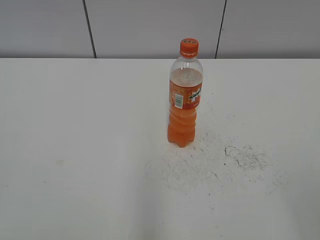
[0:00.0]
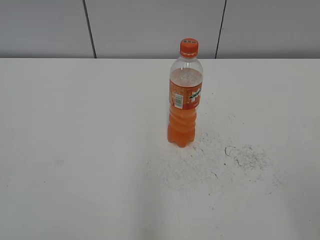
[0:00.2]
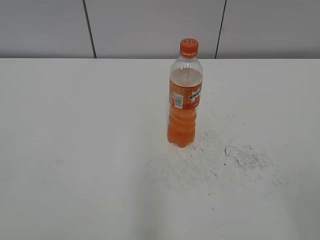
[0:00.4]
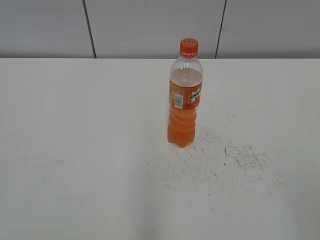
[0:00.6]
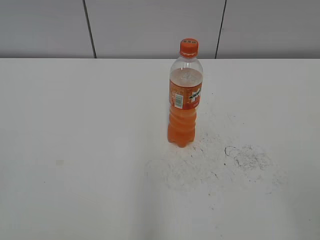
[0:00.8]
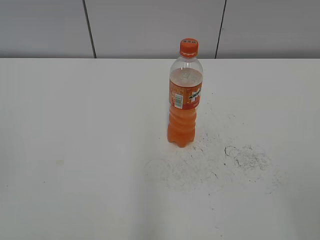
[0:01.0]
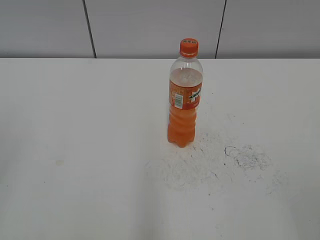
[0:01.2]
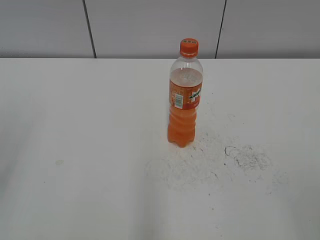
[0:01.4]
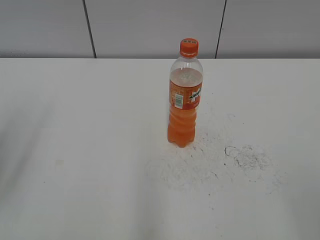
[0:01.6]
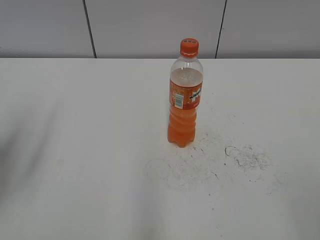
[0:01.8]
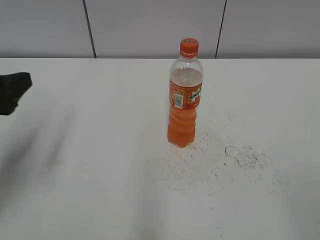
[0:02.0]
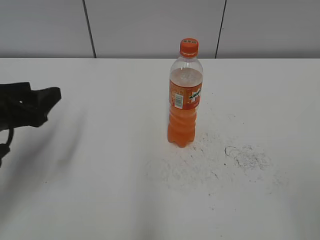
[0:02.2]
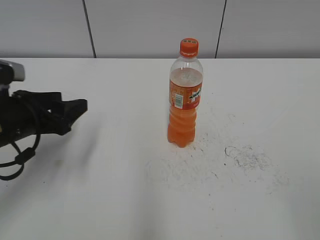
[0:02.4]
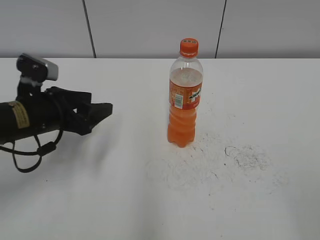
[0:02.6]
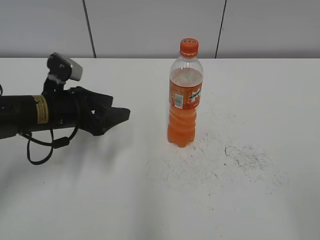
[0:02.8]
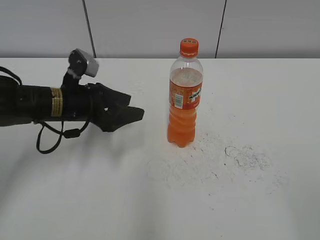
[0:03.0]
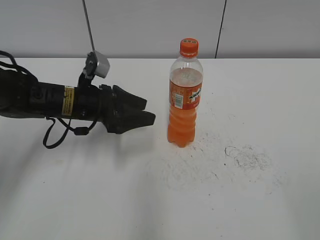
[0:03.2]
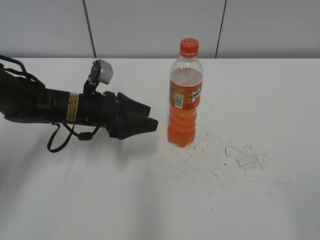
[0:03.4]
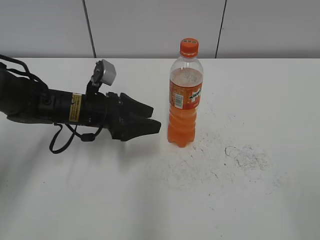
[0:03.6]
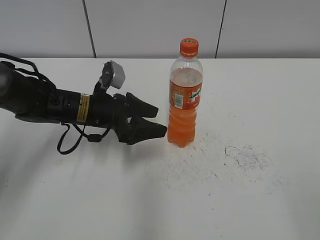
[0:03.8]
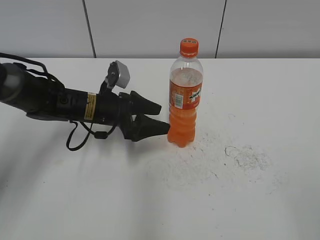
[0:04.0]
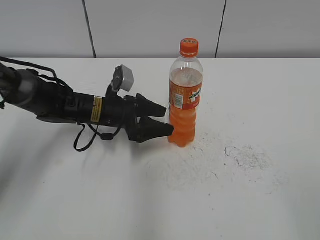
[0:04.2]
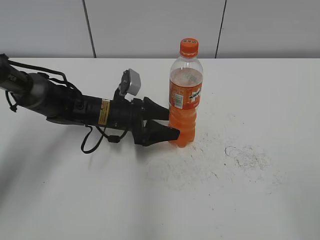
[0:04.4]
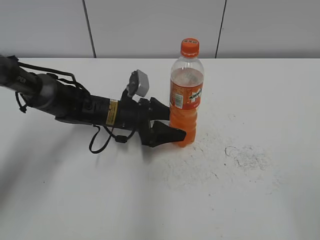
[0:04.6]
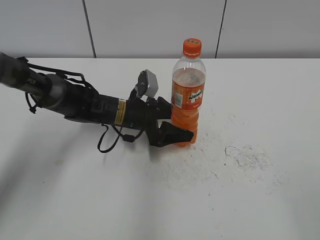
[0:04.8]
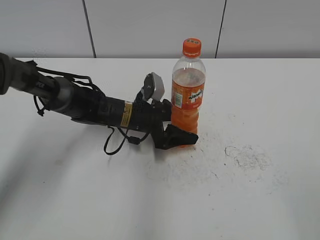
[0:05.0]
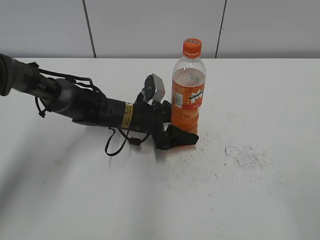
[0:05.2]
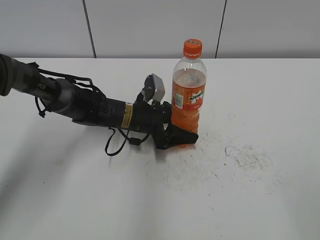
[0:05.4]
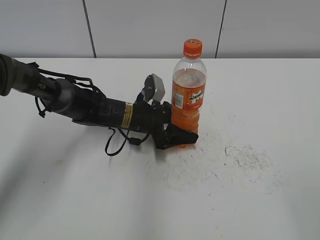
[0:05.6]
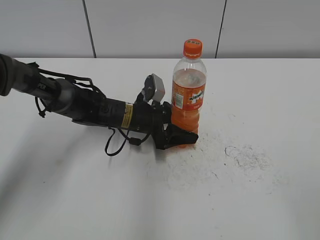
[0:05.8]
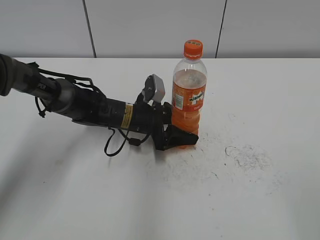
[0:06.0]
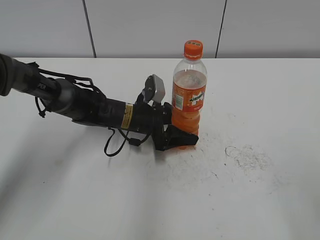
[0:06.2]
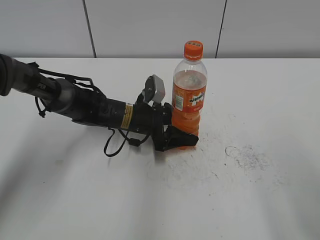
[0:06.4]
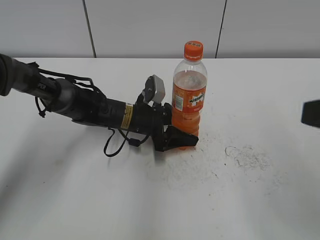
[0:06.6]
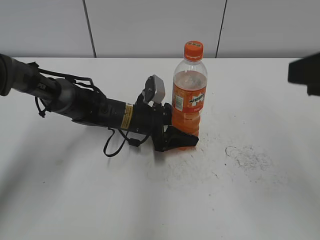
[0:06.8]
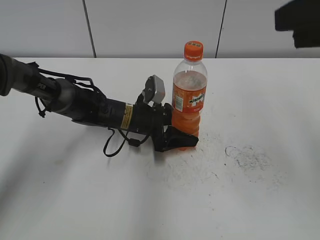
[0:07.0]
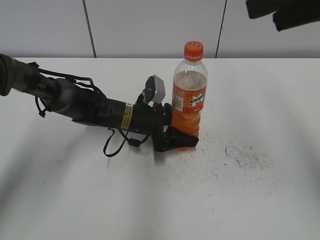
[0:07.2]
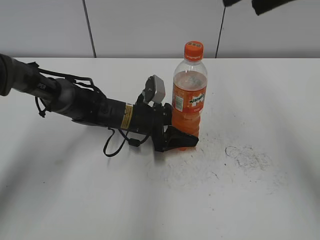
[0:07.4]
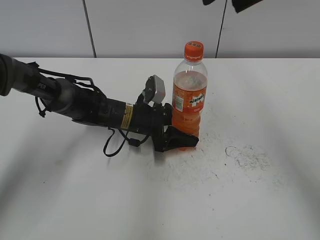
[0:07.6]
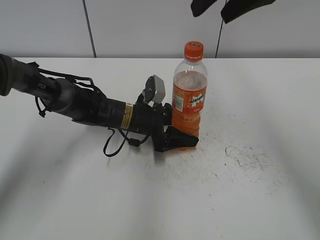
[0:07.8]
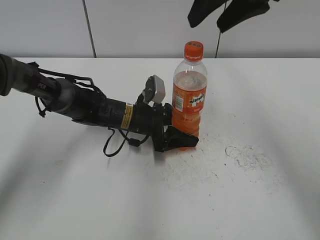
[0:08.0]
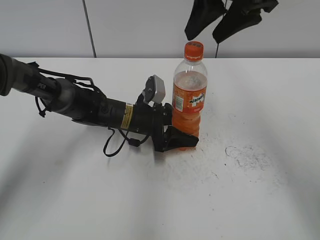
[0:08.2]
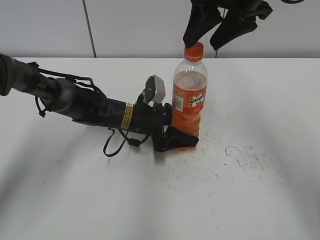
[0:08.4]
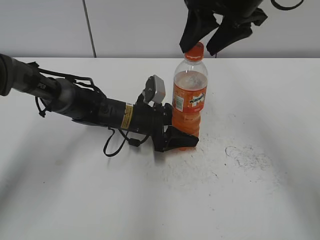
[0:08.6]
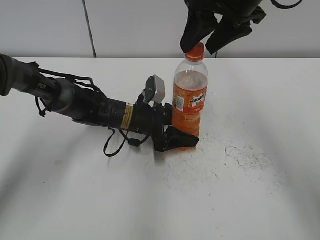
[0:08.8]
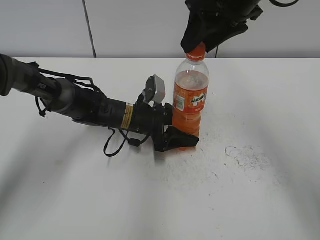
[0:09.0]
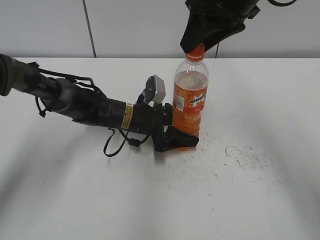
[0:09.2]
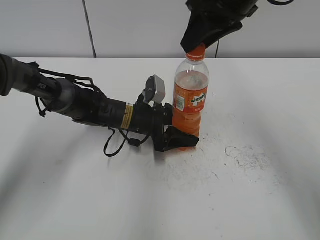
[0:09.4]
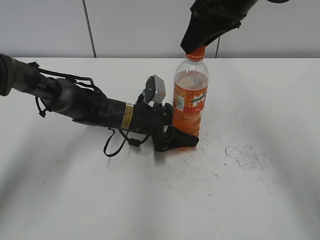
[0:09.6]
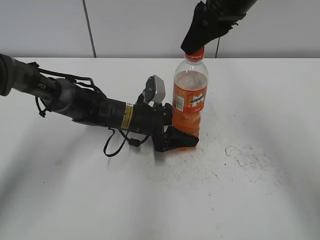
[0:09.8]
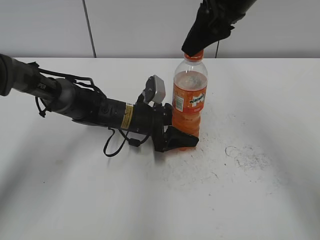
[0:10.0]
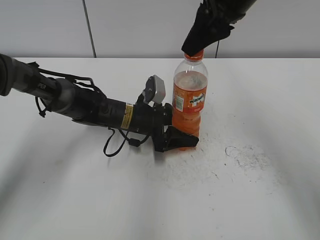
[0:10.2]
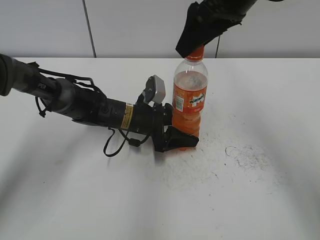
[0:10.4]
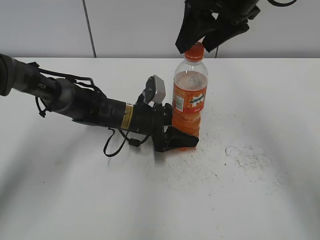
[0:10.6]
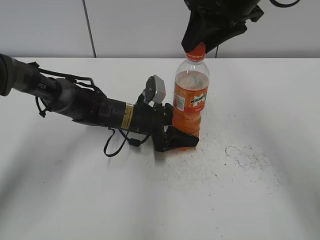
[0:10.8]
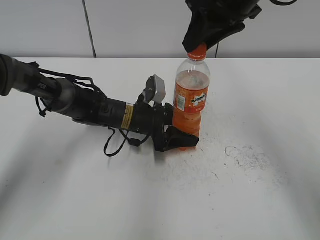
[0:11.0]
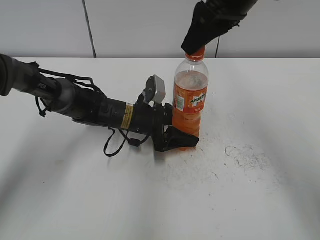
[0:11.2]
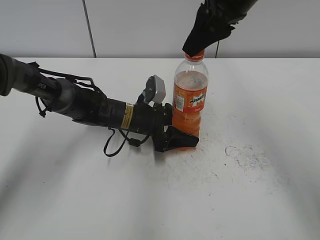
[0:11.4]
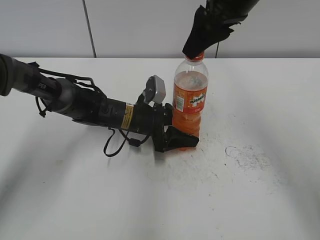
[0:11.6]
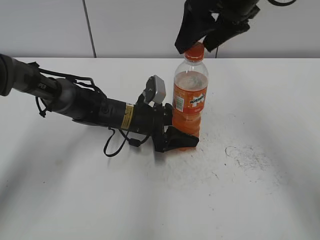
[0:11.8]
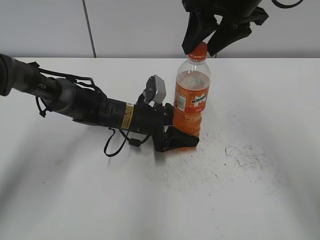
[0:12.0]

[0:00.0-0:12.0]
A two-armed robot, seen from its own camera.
Step, 0:00.0 to 0:05.4: Grab the Mirinda with the left hand.
0:01.6 to 0:03.0: The left gripper goes about 30 cm forward, downward and to the right.
0:03.0 to 0:04.4: The left gripper shifts some 10 cm to the right and downward, and opens up.
0:04.4 to 0:06.0: The left gripper closes up.
0:06.0 to 0:07.6: The right gripper travels forward by about 30 cm.
0:07.6 to 0:09.0: The right gripper heads downward and forward, covering roughly 10 cm.
0:09.0 to 0:10.4: The right gripper opens.
0:10.4 to 0:12.0: The right gripper closes, then reopens.

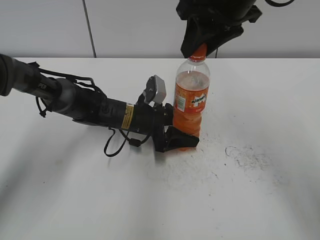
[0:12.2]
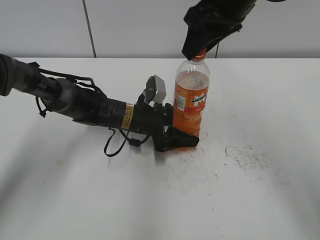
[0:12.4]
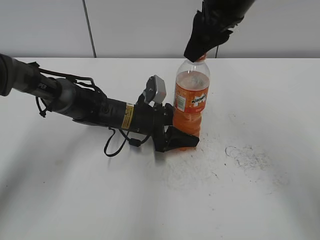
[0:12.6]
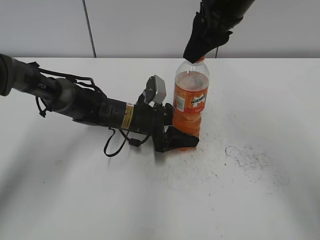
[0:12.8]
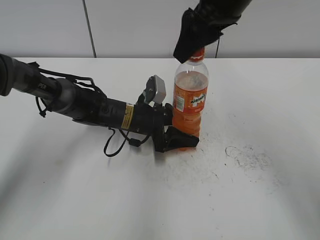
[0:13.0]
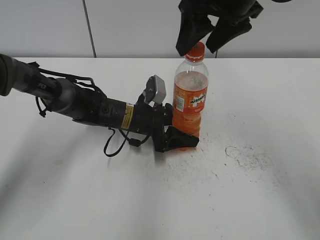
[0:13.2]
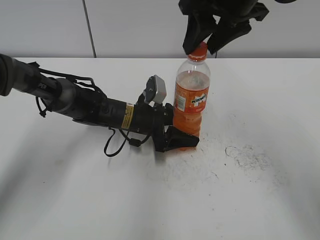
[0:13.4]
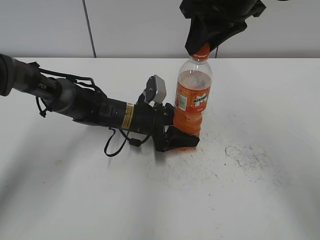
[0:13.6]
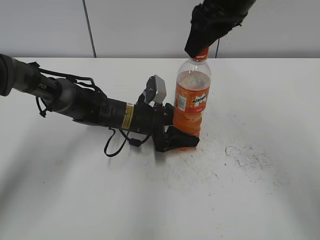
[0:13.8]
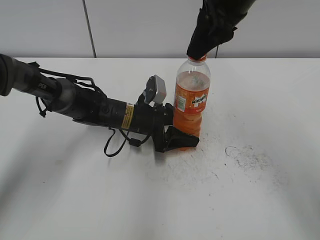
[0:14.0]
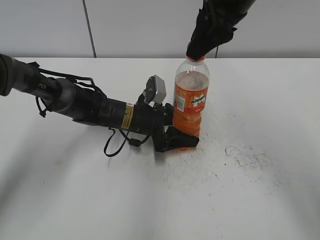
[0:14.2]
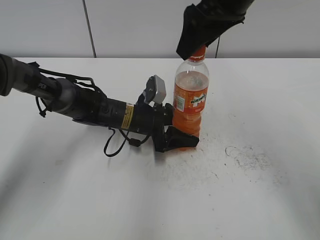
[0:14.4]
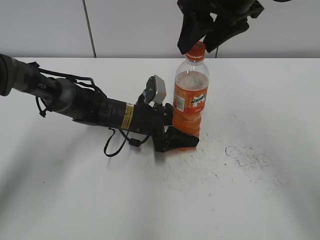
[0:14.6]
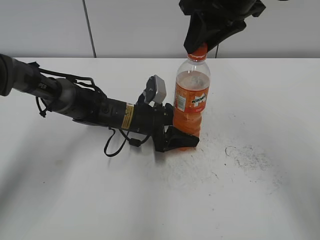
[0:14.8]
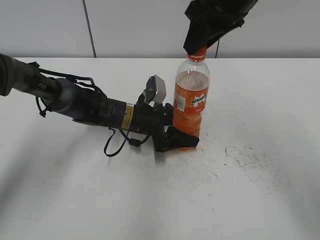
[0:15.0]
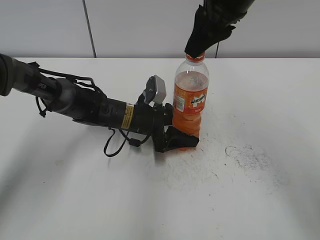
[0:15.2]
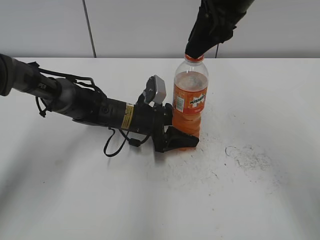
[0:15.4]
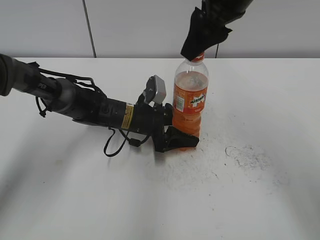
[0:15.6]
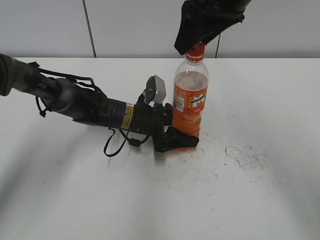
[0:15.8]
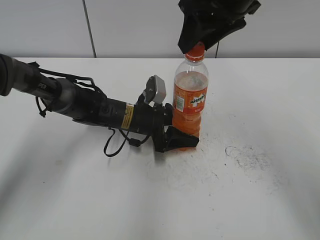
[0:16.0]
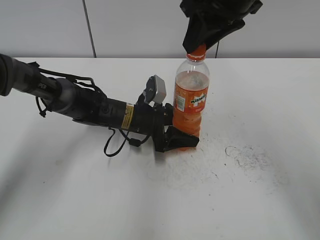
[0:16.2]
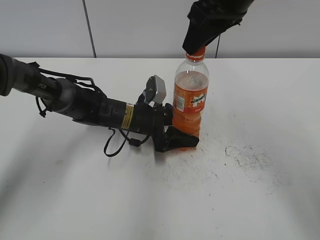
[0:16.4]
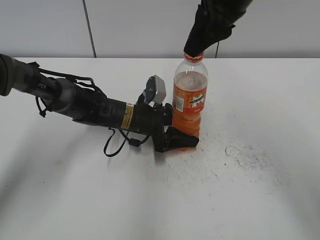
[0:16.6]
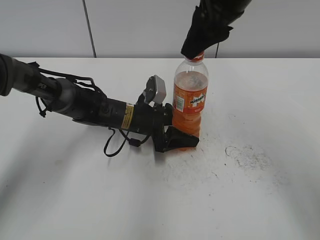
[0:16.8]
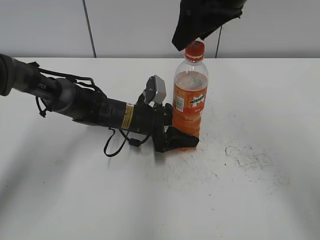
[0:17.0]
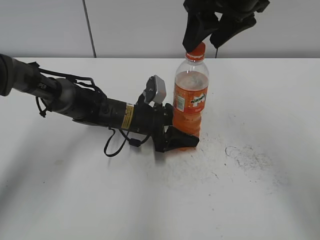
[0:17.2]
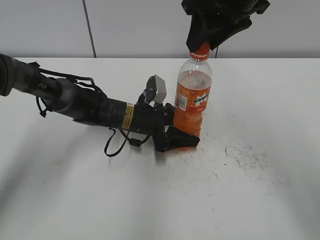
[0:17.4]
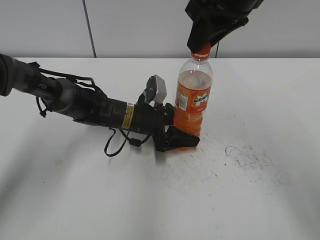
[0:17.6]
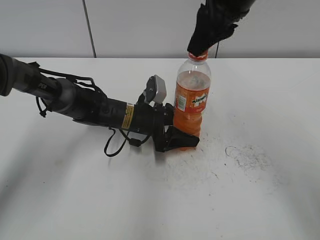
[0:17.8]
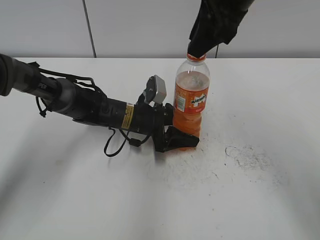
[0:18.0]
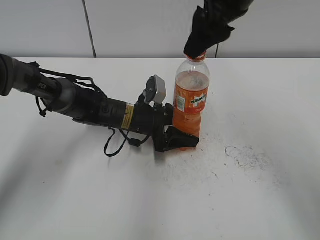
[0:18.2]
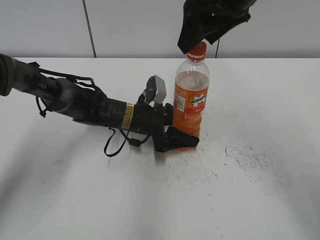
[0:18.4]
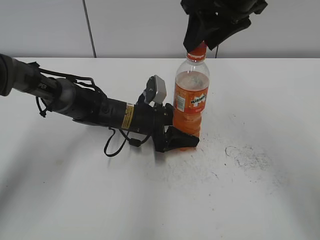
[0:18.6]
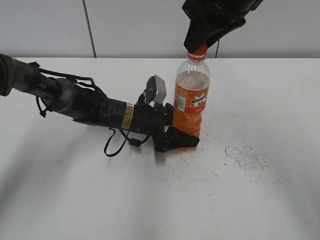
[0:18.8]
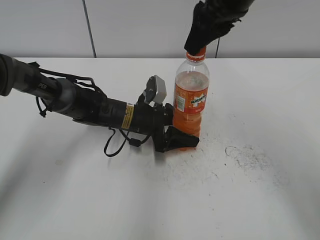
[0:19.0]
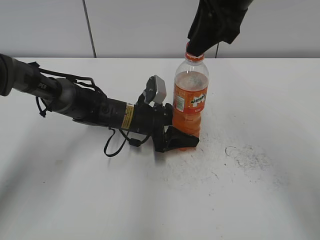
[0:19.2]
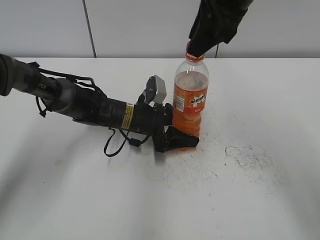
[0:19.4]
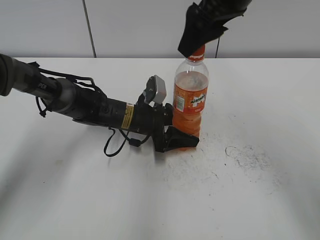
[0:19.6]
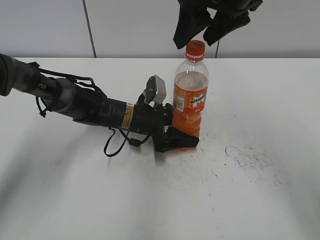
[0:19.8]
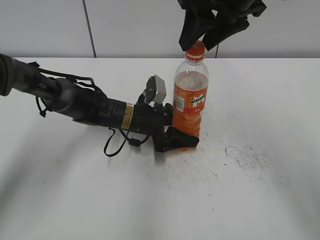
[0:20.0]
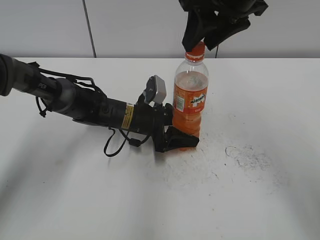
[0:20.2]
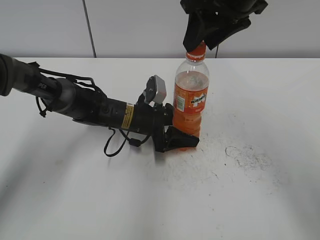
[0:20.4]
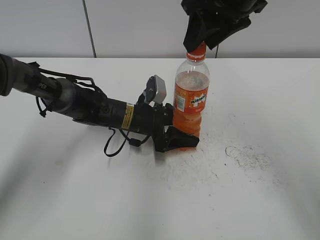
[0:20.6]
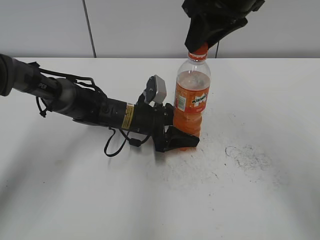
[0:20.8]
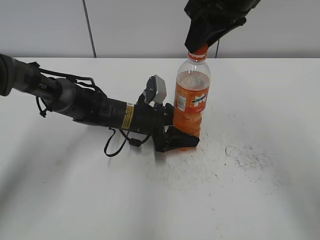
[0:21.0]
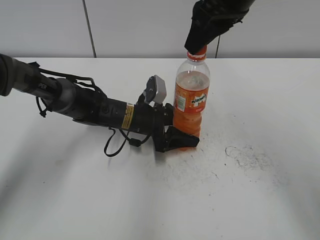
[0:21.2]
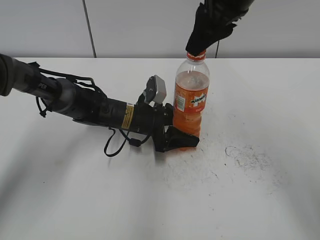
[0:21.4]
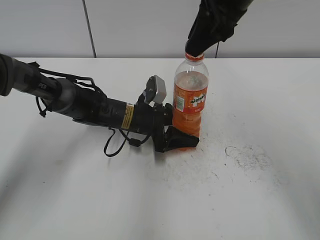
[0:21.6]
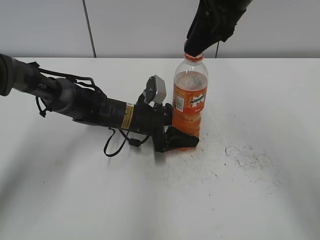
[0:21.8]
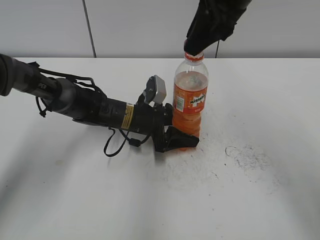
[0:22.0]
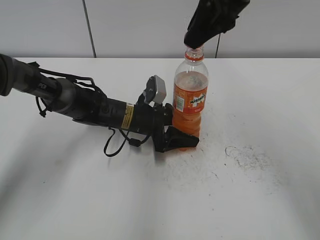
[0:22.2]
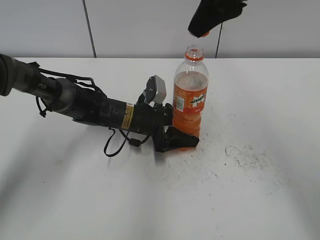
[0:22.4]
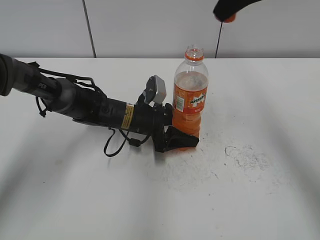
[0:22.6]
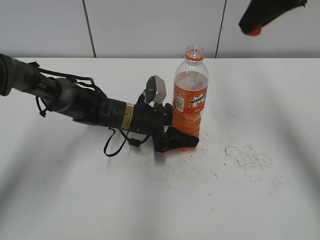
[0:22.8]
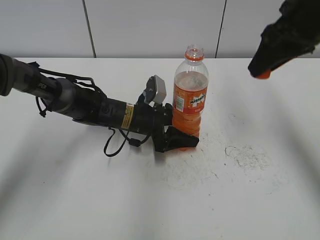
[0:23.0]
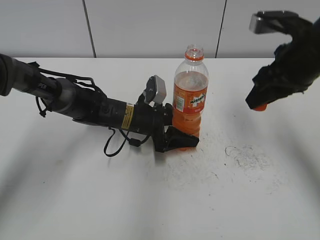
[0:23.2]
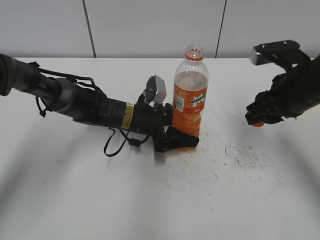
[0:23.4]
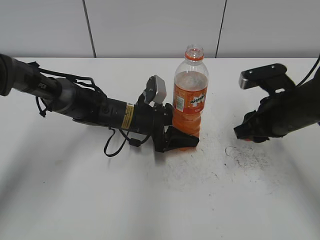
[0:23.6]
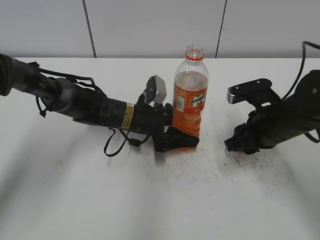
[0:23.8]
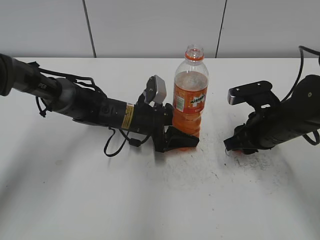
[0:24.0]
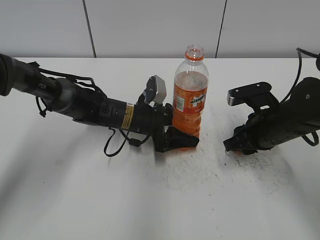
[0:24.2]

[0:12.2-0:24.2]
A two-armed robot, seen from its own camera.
0:12.2 to 0:13.8: The right gripper opens, then closes again.
0:13.8 to 0:15.2: The right gripper opens, then closes again.
0:16.6 to 0:18.2: The right gripper opens.
0:18.2 to 0:19.8: The right gripper closes, then opens again.
0:19.8 to 0:21.2: The right gripper closes.
0:21.2 to 0:22.6: The right gripper ends up roughly 5 cm from where it was.
0:22.6 to 0:24.2: The right gripper moves downward, roughly 25 cm.
